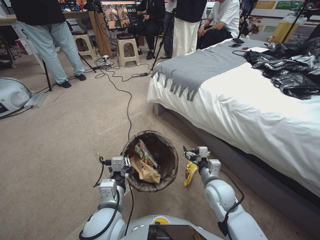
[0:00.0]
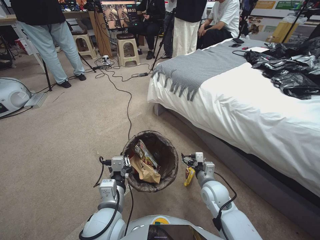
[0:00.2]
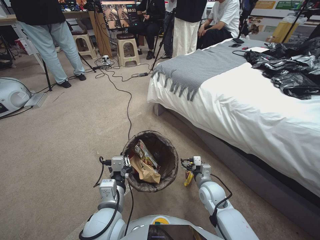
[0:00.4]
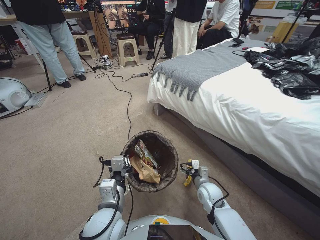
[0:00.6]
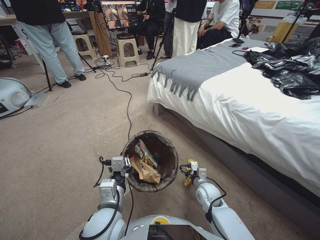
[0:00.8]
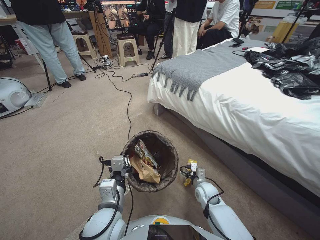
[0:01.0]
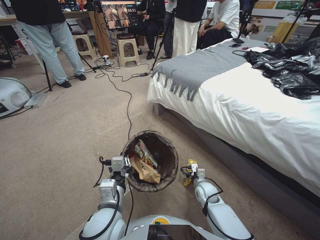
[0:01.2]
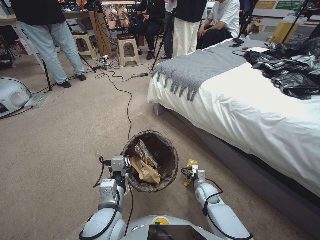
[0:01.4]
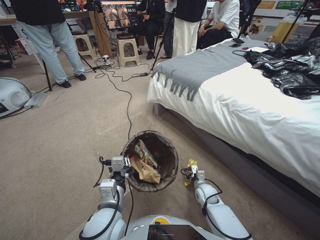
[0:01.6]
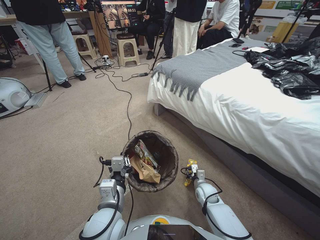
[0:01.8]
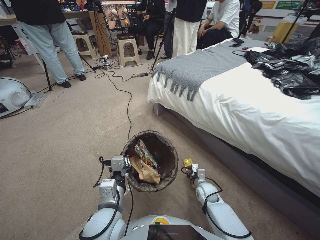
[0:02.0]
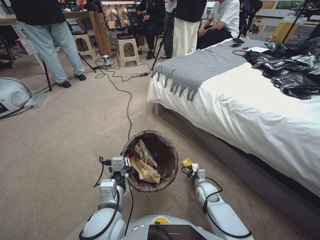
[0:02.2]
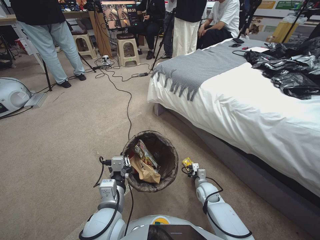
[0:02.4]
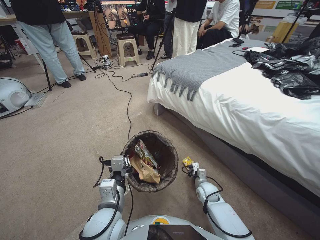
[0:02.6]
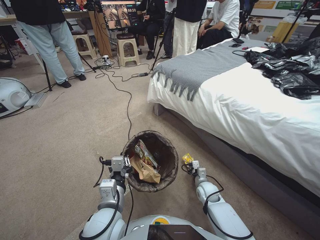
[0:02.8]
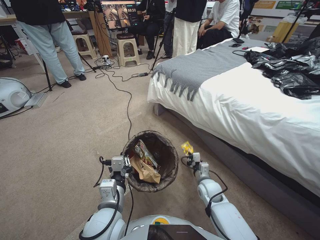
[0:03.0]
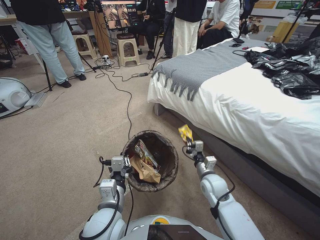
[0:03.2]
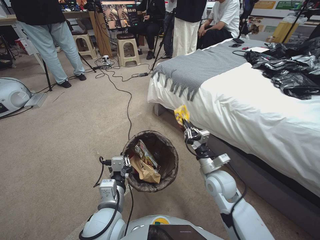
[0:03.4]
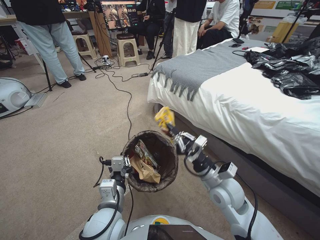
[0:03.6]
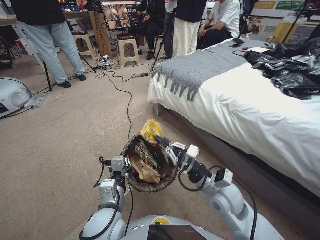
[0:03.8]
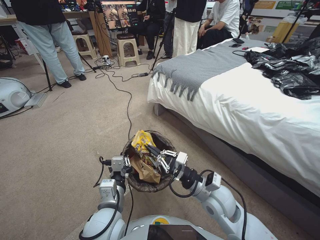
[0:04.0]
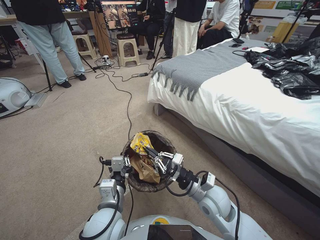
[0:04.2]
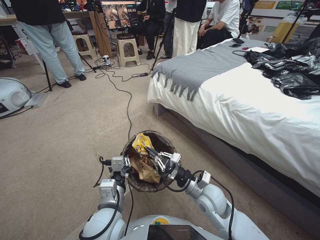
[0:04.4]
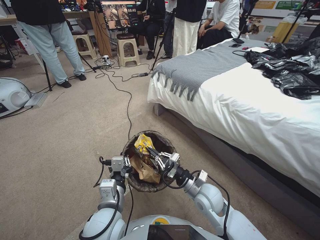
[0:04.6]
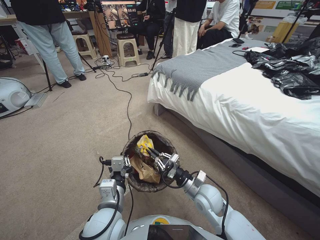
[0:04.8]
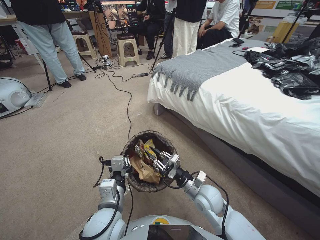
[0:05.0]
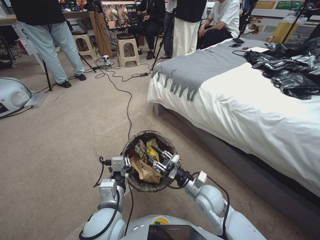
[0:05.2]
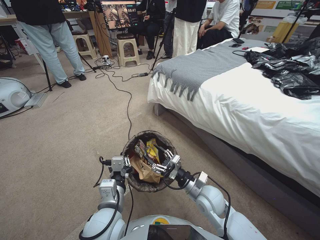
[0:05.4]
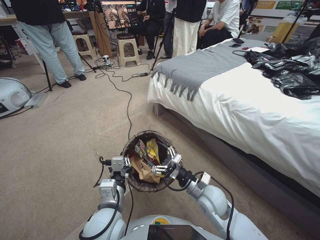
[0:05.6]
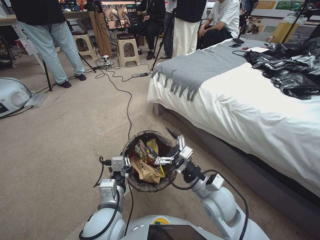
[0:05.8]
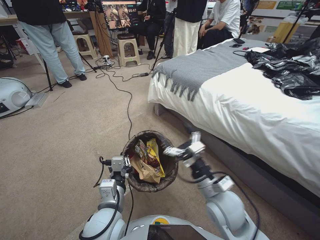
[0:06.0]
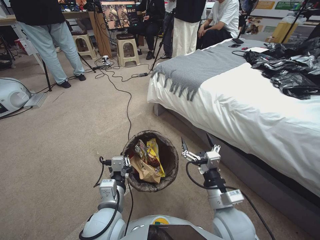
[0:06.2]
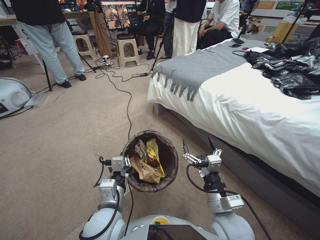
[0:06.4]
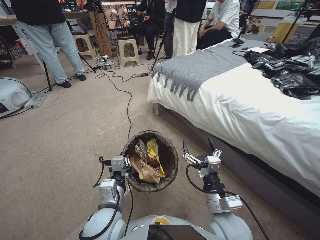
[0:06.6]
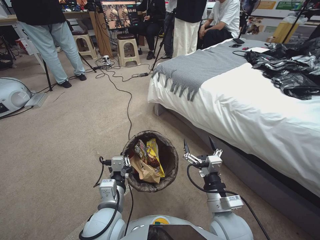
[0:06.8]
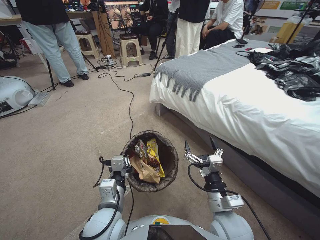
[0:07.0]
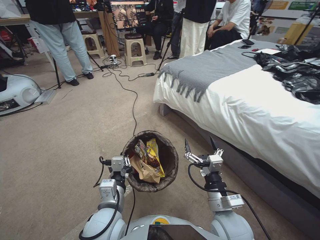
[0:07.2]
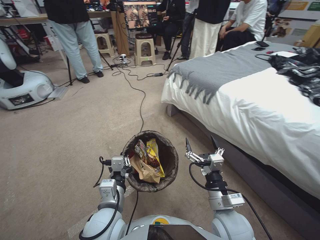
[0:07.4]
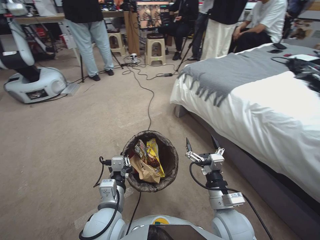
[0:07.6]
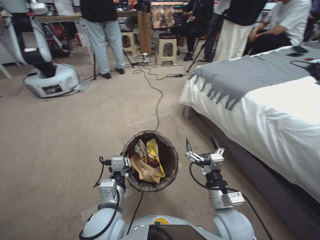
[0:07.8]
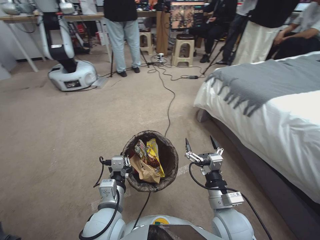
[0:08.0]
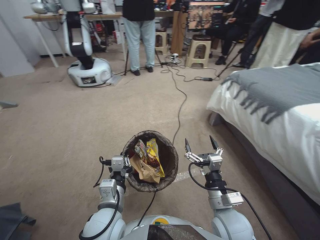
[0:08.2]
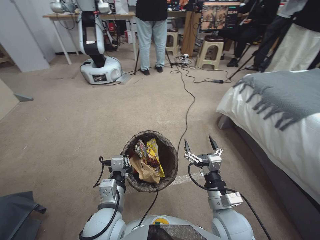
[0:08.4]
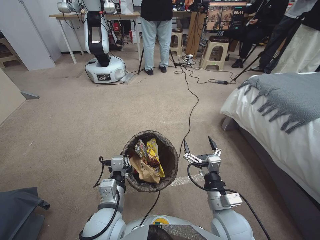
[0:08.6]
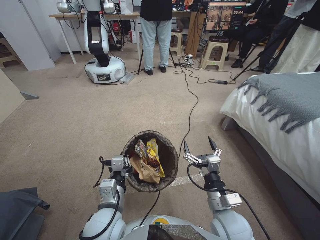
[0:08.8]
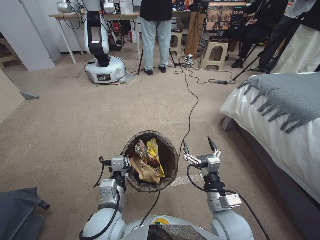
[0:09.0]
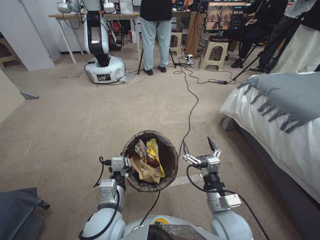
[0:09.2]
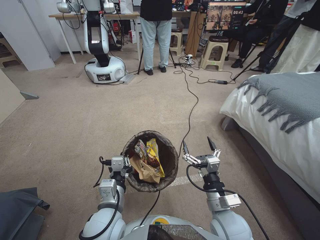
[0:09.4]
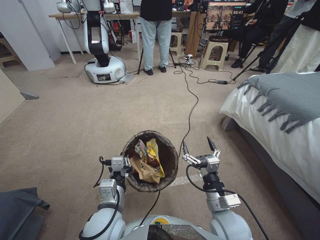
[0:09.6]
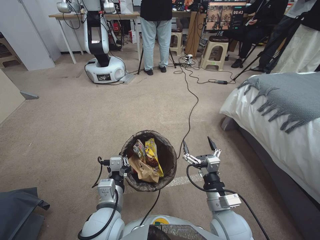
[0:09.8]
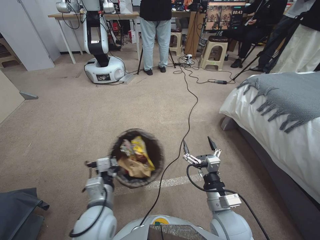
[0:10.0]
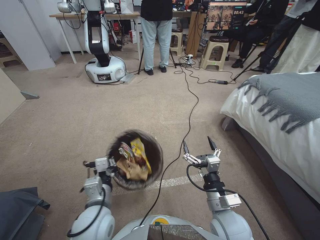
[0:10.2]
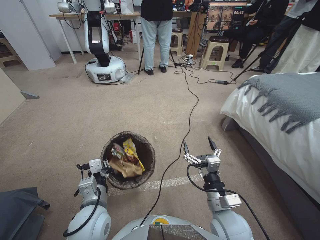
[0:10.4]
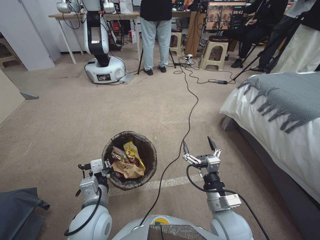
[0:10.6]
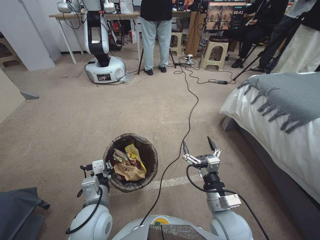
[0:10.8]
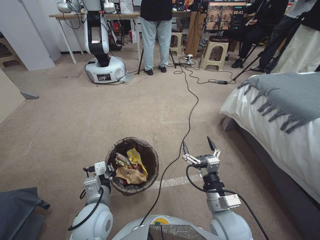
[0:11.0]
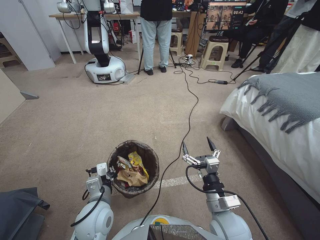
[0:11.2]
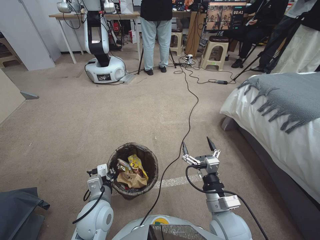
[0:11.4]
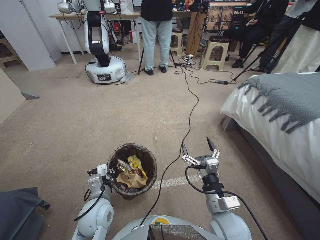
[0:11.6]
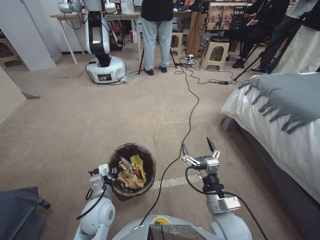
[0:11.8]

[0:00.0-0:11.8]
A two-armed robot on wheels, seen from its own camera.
Task of the whole recording: Pick up the trash bin, then pick up the garbage from the floor and place it into the trash bin.
0:00.0 to 0:01.4: The right gripper shifts about 15 cm downward.
0:01.4 to 0:03.0: The right gripper closes.
0:03.0 to 0:04.4: The right gripper goes some 15 cm upward.
0:04.4 to 0:06.0: The right gripper opens.
0:06.0 to 0:07.4: The right gripper shifts approximately 10 cm backward.
0:08.8 to 0:10.4: The grippers make only small movements.
0:10.4 to 0:11.8: The left gripper goes some 5 cm downward.

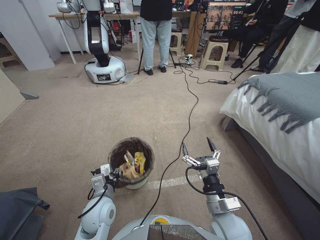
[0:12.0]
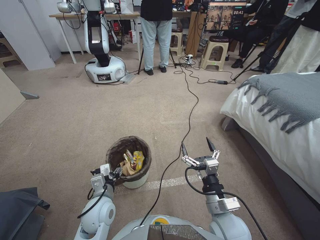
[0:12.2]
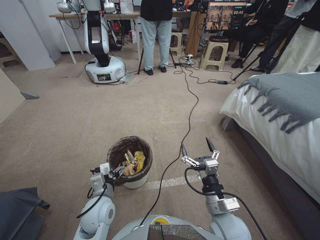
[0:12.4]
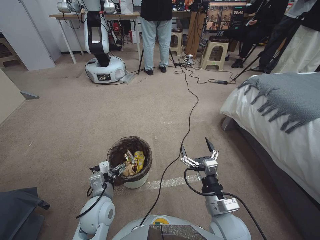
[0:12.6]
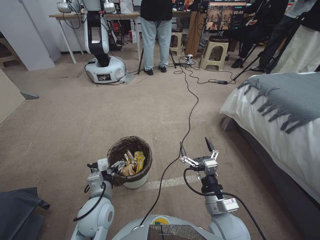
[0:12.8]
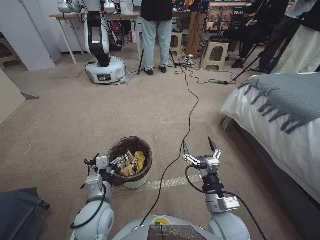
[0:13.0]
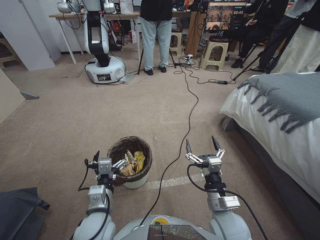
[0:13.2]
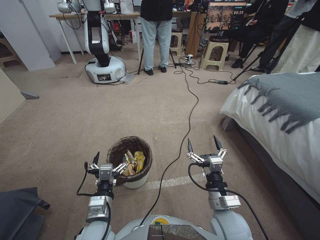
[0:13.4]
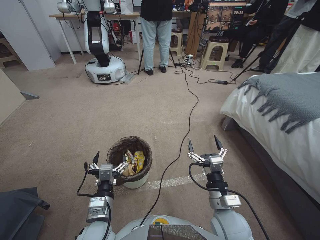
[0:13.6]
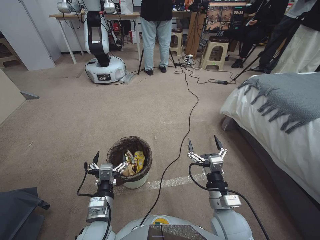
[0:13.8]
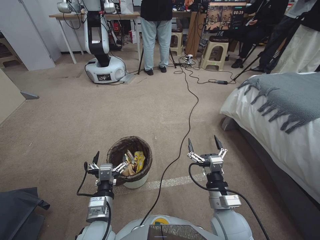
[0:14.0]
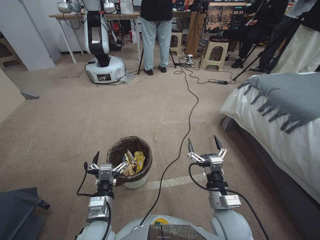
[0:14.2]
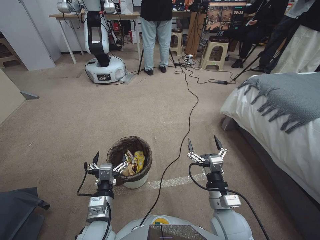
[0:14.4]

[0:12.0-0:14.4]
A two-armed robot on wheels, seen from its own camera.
Task of the whole recording: Pick up the trash bin, then pick up the garbage from the floor and place it into the trash bin.
0:12.0 to 0:13.2: The left gripper shifts approximately 5 cm upward, and opens.
0:13.2 to 0:14.4: The grippers make only small movements.

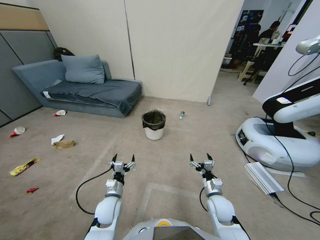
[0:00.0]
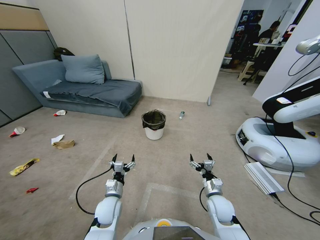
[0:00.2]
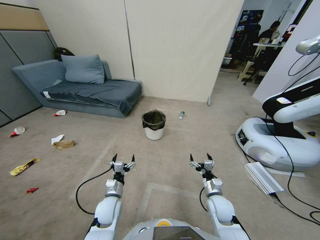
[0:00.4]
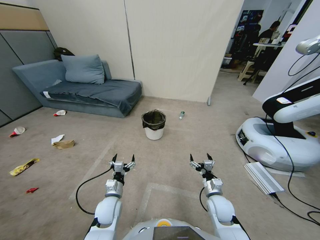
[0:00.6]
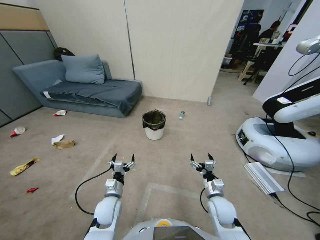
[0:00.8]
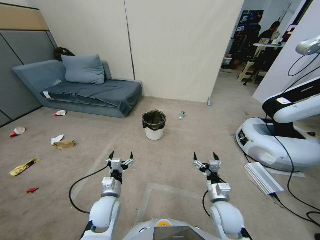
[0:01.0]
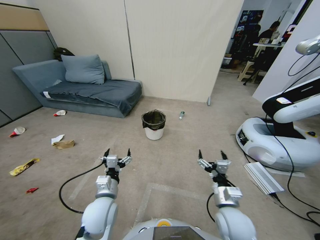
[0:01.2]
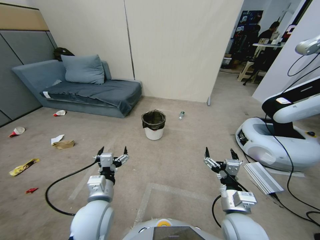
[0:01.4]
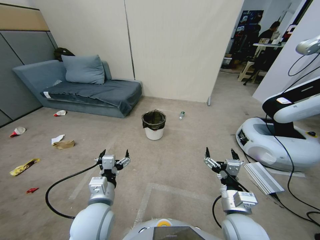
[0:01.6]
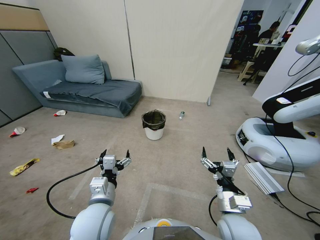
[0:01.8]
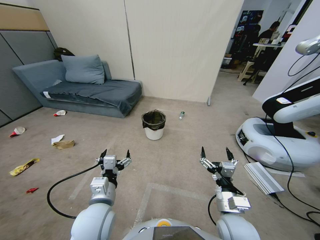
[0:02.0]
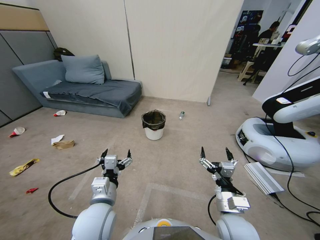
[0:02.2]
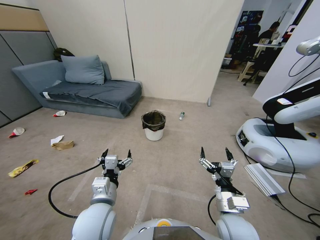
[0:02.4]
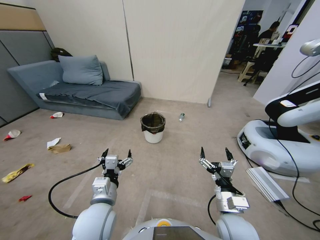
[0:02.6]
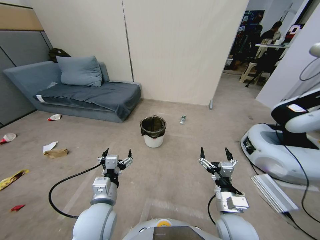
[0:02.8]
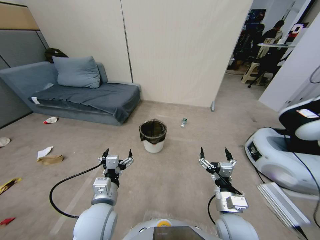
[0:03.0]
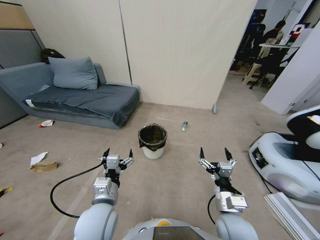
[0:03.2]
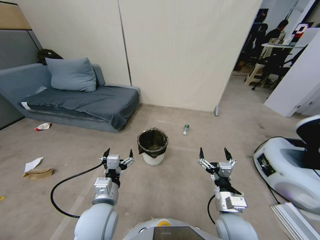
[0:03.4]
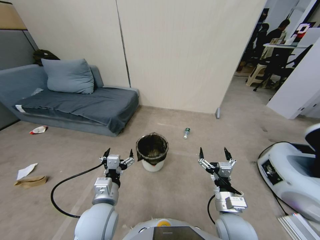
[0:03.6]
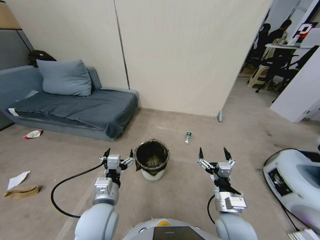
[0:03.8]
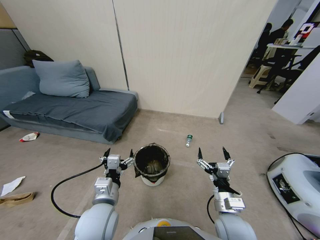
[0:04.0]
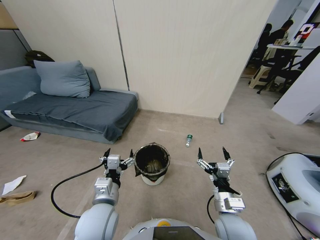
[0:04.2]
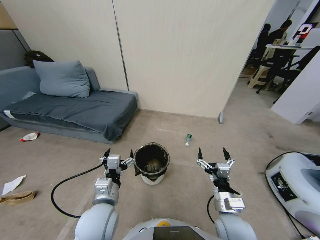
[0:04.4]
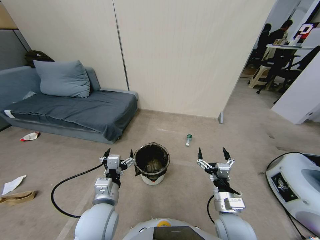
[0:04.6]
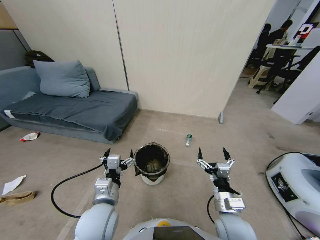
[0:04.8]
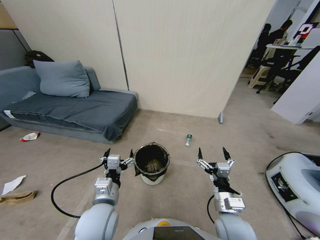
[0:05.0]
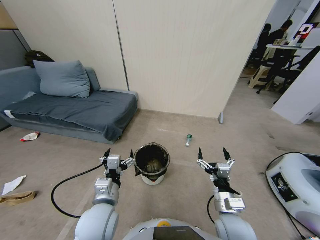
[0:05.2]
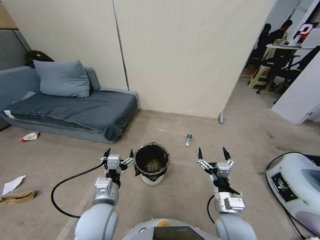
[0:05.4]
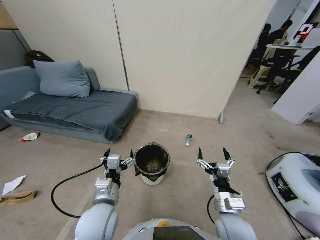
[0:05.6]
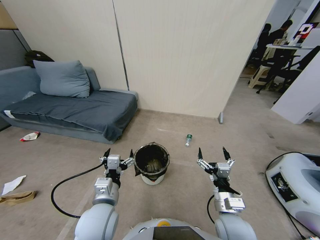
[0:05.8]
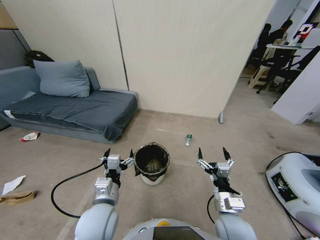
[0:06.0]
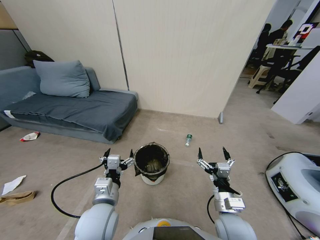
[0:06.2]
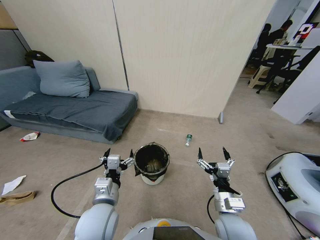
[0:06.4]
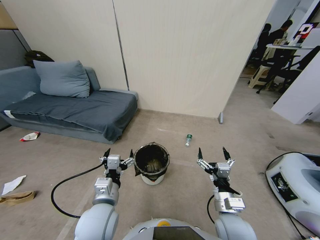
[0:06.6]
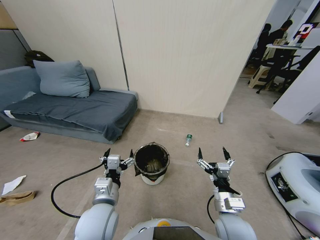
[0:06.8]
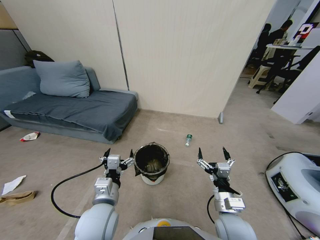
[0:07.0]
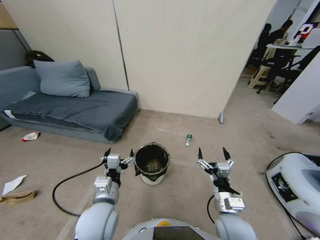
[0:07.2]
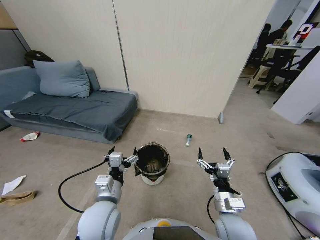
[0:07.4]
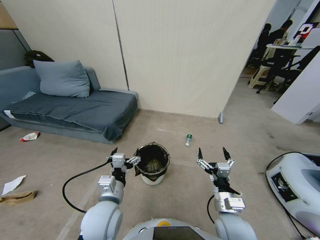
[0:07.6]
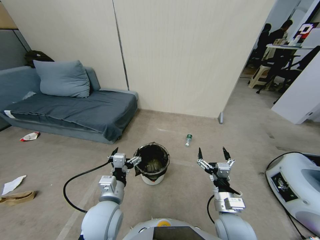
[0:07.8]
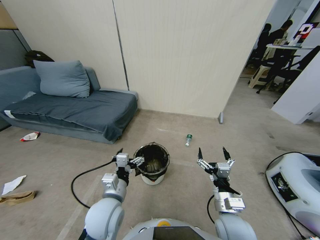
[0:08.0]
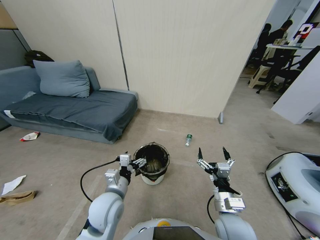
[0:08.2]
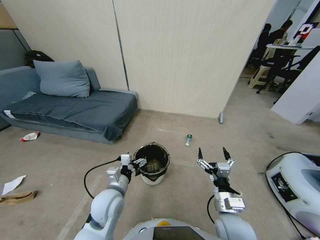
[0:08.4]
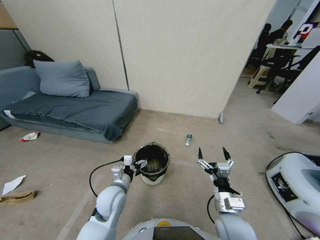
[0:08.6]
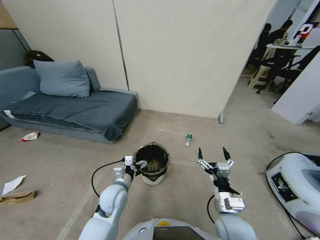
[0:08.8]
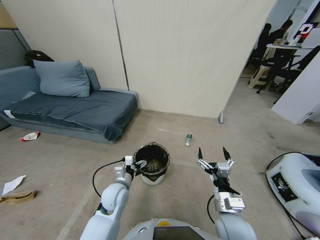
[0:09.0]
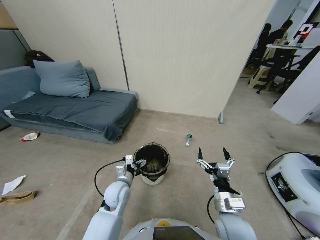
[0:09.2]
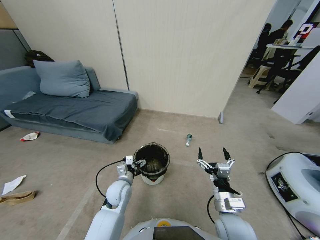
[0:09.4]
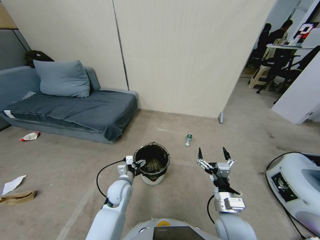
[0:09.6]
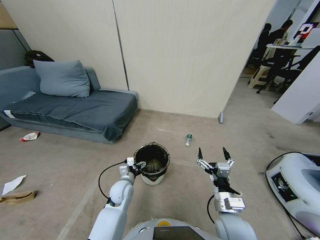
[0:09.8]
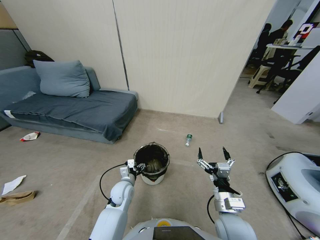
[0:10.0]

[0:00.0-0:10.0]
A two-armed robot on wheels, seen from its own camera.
Task of the whole recording: Pick up the trash bin, then pick up the garbage from the floor and place it into the trash bin.
0:04.2 to 0:05.8: The two grippers keep their place.
0:07.2 to 0:08.6: The left gripper is displaced downward and forward by about 10 cm.
0:08.6 to 0:10.0: The left gripper travels downward by some 10 cm.
